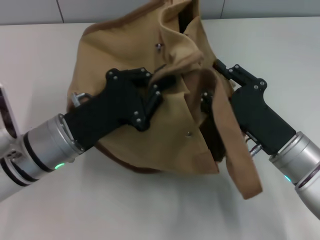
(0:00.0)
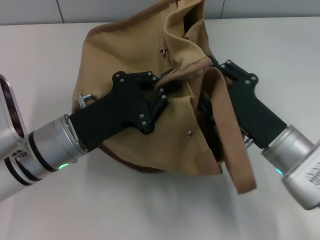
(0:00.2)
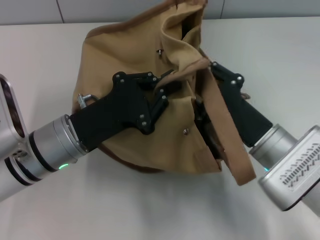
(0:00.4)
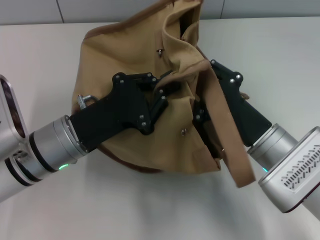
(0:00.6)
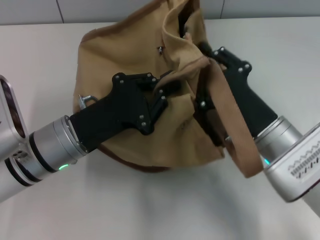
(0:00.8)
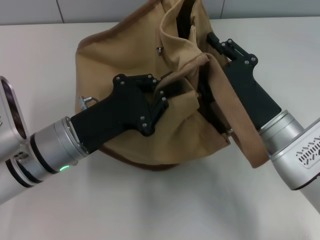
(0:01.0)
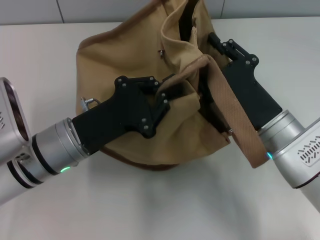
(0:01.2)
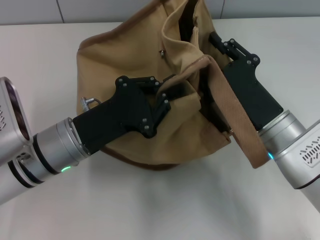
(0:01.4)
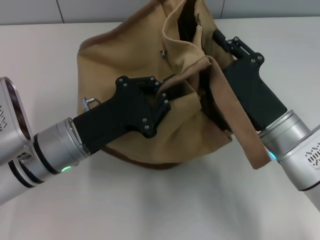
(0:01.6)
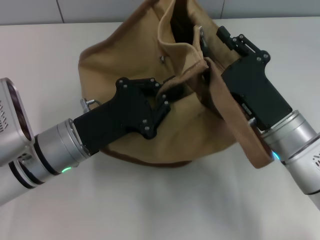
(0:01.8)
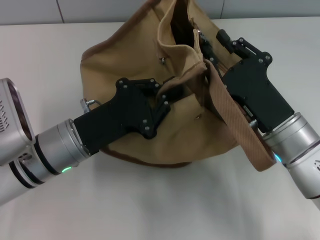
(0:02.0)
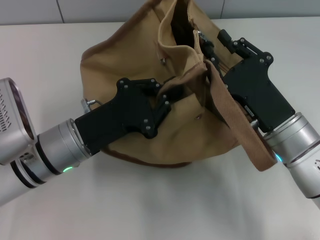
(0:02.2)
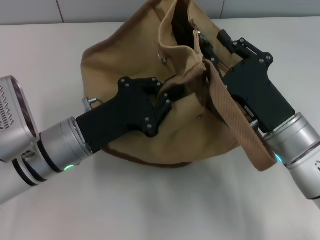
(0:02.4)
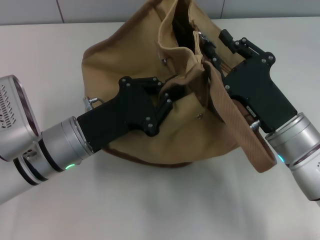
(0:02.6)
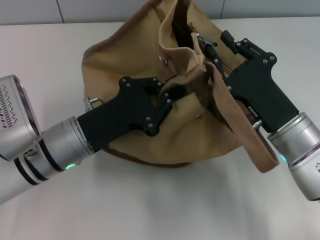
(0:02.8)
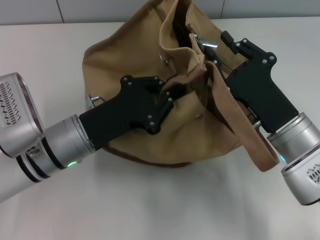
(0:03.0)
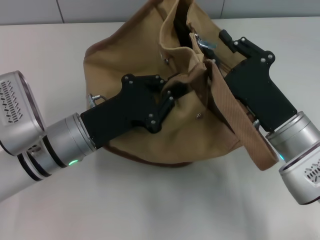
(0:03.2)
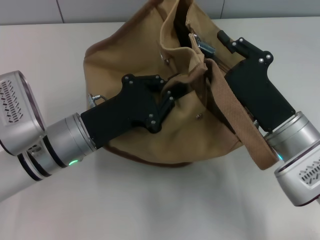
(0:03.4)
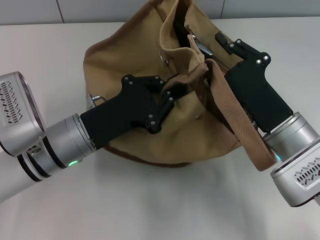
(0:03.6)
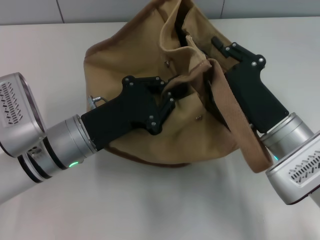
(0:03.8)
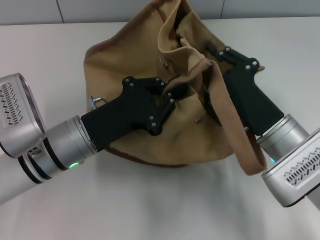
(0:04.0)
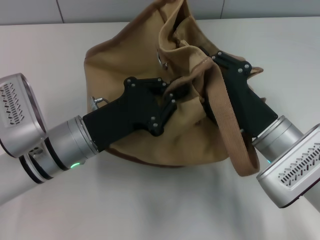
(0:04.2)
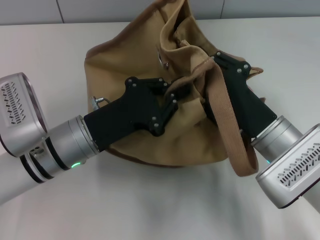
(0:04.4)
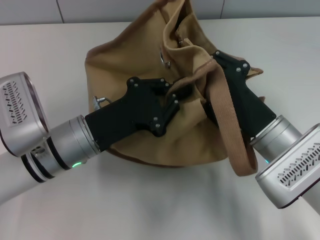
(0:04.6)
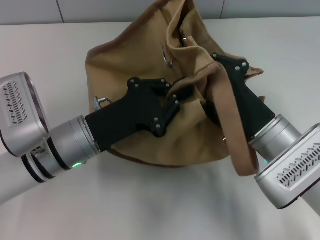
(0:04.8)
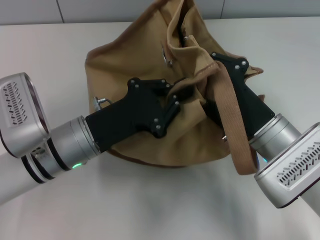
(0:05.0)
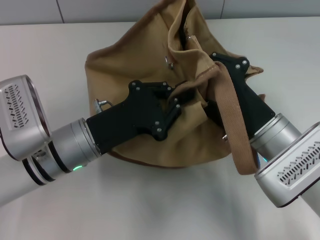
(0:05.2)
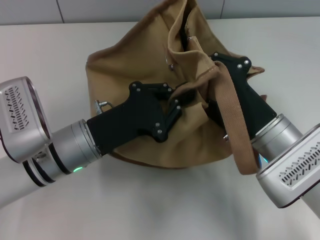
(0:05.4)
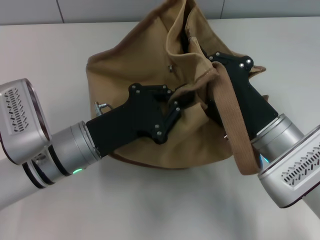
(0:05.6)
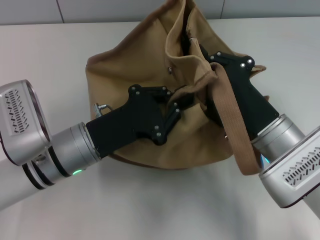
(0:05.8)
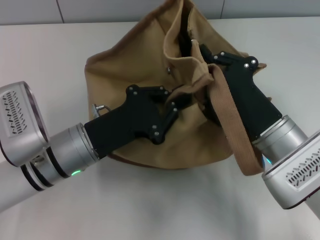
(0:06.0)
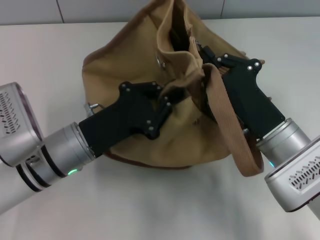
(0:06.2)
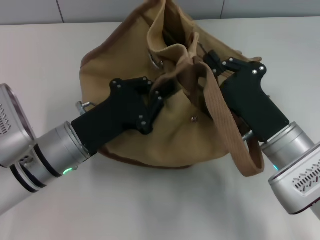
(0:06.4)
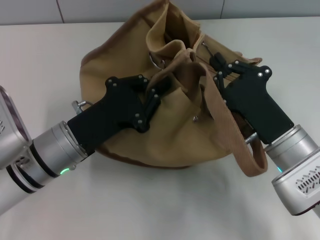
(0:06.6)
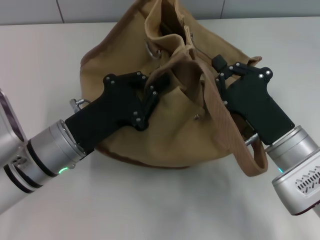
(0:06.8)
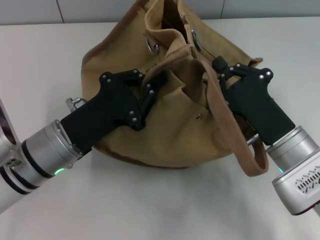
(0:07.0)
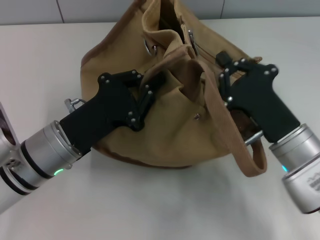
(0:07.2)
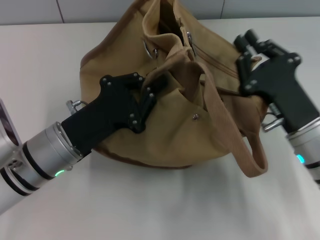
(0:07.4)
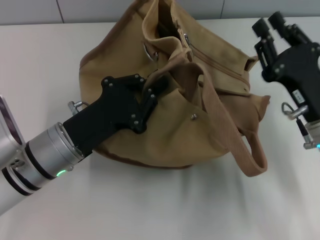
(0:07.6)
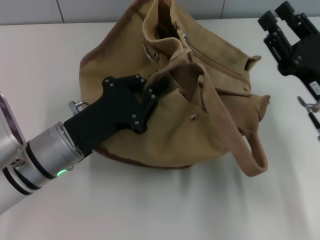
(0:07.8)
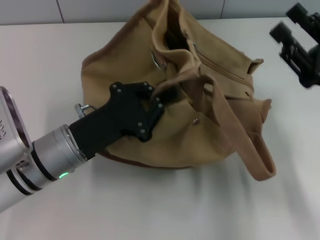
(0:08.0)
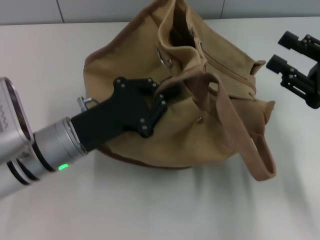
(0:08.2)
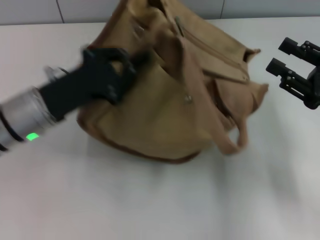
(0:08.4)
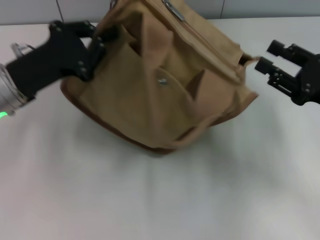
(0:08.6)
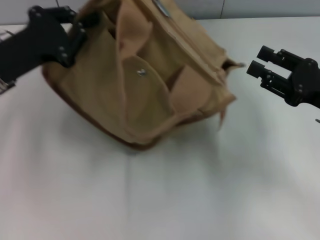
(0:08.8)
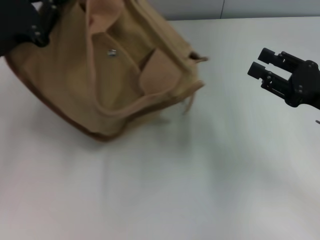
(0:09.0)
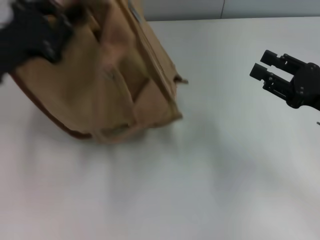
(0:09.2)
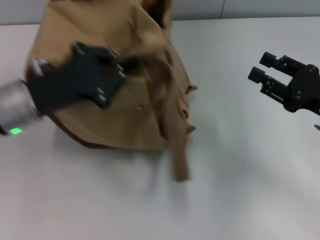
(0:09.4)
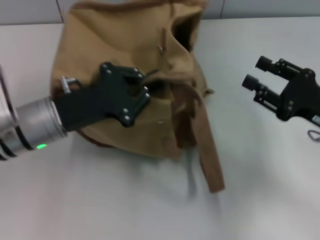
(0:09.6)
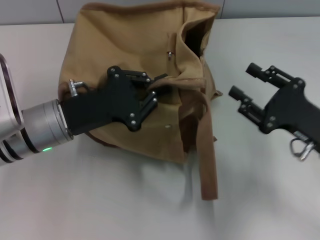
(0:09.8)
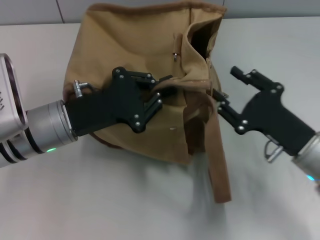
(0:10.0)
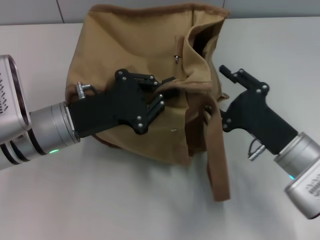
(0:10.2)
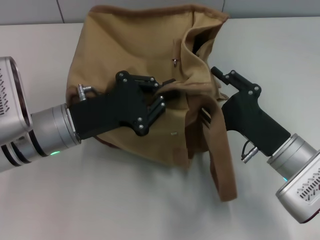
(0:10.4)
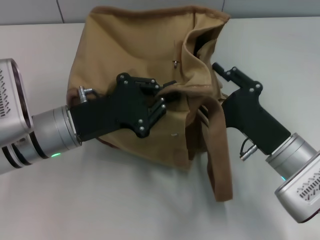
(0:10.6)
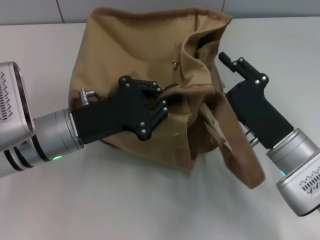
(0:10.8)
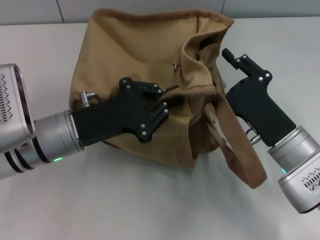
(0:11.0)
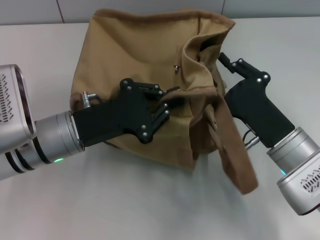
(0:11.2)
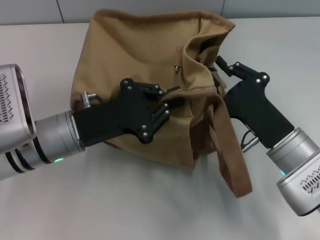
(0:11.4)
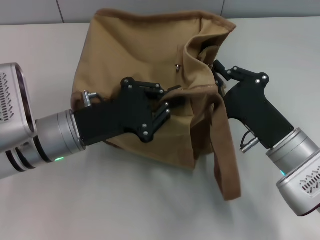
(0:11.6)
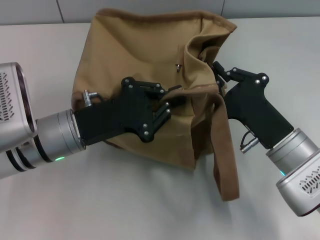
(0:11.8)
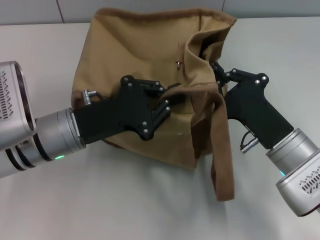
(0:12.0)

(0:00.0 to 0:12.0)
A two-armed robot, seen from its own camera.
0:01.6 - 0:03.0: There are only small adjustments of the grippers.
0:04.4 - 0:06.0: The right gripper closes.
0:06.0 - 0:07.6: The right gripper travels to the right by about 5 cm.
0:07.6 - 0:09.0: The left gripper heads to the left, upward and forward, covering roughly 15 cm. Meanwhile the right gripper shifts some 5 cm to the right.
0:09.0 - 0:10.4: The right gripper goes about 10 cm to the left and downward, while the left gripper heads to the right and downward, covering about 15 cm.
0:10.4 - 0:12.0: The right gripper closes.

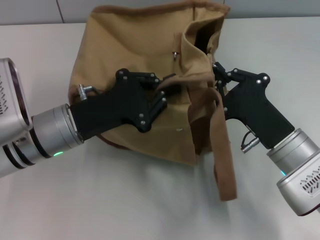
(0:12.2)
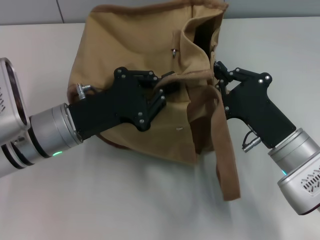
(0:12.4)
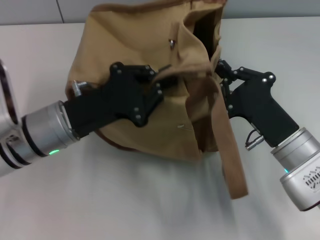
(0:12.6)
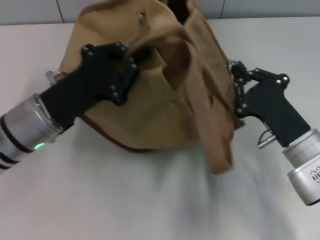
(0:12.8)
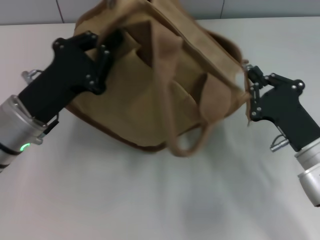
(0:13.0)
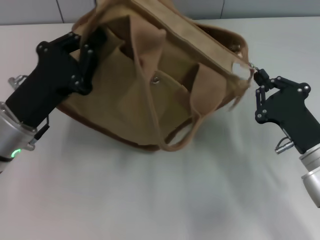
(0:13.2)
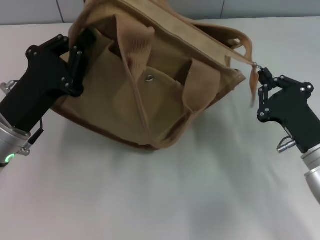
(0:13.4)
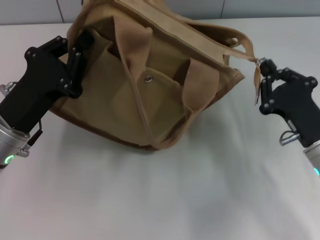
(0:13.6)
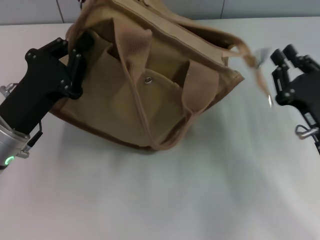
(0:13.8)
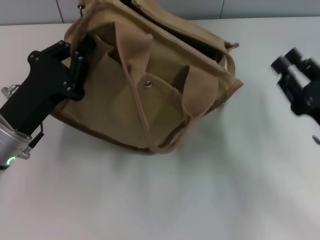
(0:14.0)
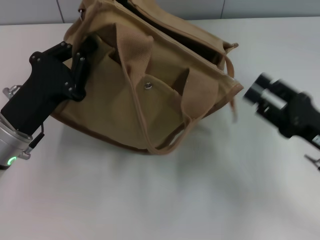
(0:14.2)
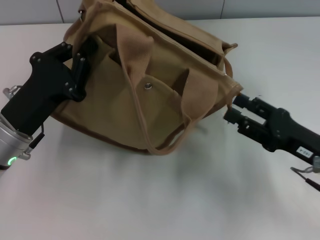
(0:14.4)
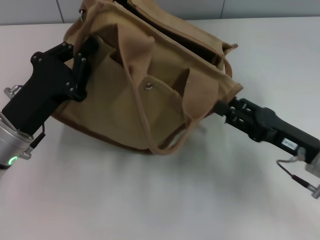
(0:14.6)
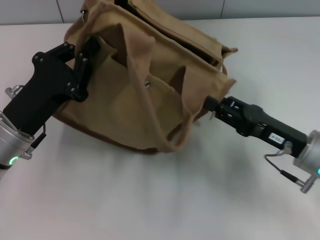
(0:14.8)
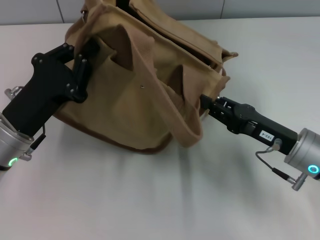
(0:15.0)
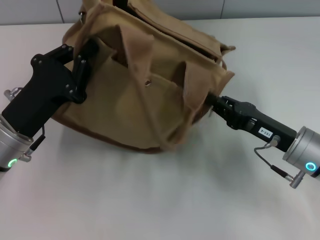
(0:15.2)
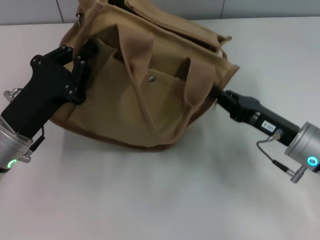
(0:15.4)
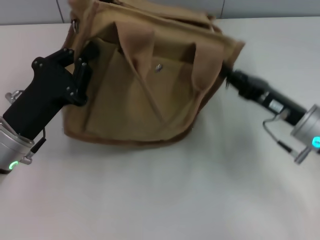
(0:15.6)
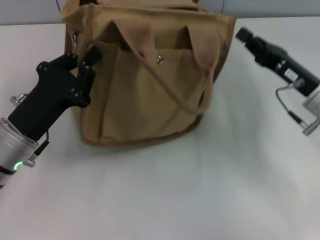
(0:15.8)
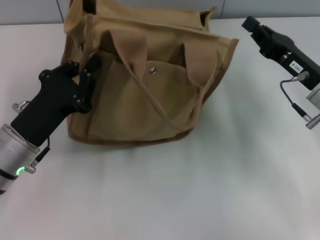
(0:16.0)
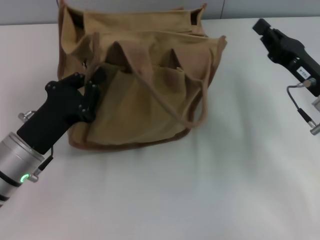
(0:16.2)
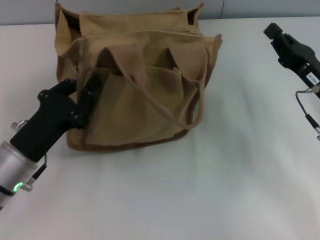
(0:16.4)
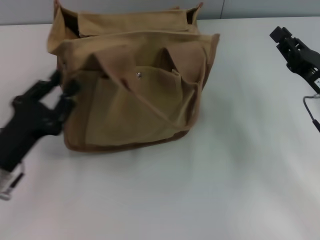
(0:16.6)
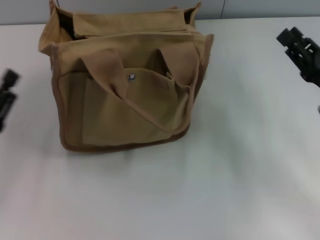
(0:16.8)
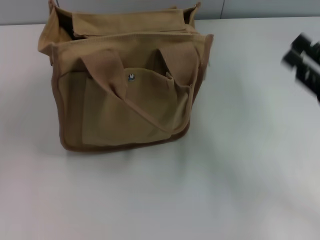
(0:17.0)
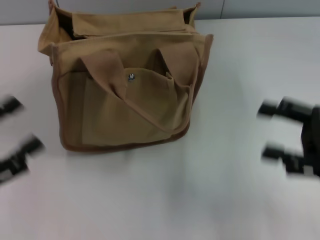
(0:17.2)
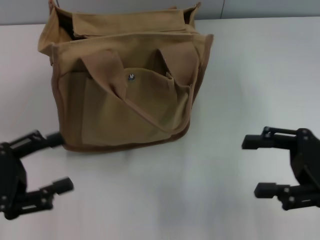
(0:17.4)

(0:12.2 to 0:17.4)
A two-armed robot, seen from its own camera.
Step, 0:14.2 - 0:16.6: Grab the bag with your left hand.
0:12.2 - 0:14.0: The right gripper is displaced to the right by roughly 10 cm; the left gripper shifts about 5 cm to the left.
0:14.0 - 0:15.6: The right gripper heads forward, covering about 5 cm, and opens and closes again.
0:15.6 - 0:17.4: The left gripper moves to the left and backward, roughly 10 cm, and opens its fingers. The right gripper moves upward, backward and to the right, about 10 cm, and opens up.

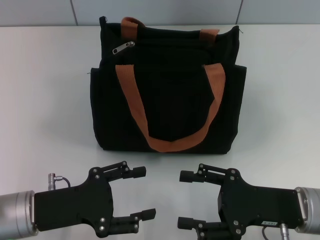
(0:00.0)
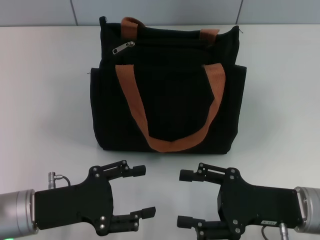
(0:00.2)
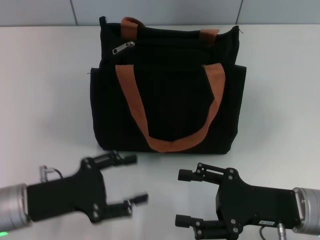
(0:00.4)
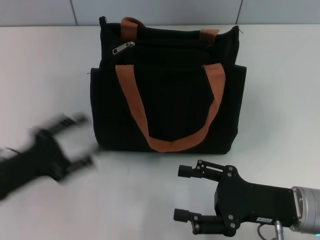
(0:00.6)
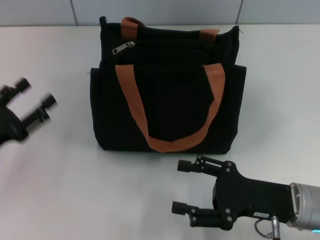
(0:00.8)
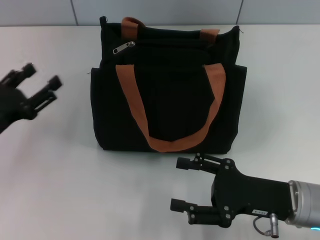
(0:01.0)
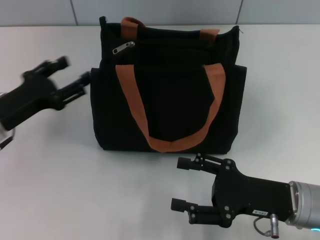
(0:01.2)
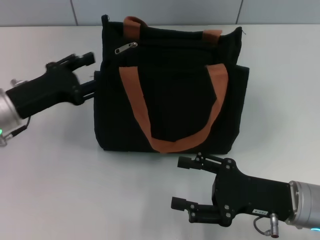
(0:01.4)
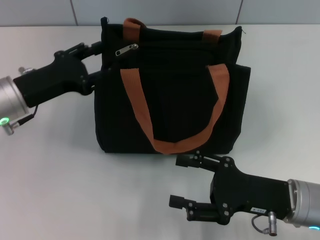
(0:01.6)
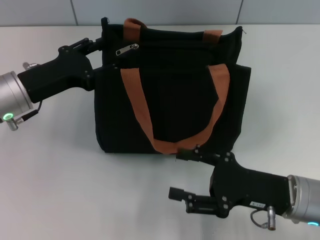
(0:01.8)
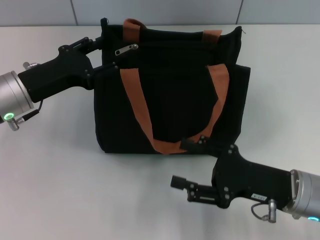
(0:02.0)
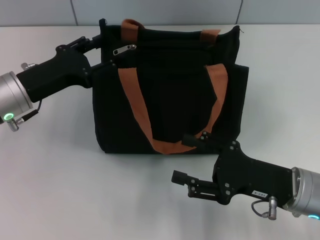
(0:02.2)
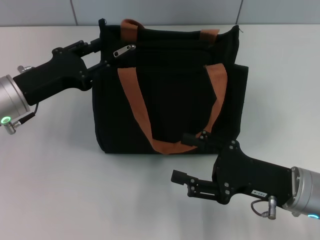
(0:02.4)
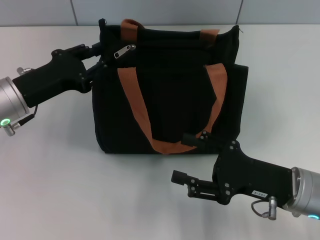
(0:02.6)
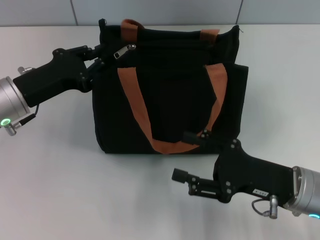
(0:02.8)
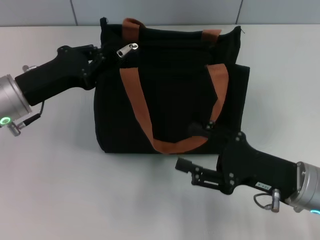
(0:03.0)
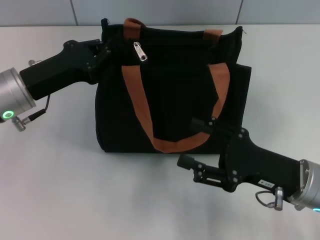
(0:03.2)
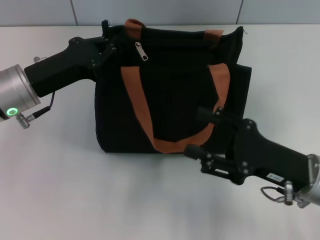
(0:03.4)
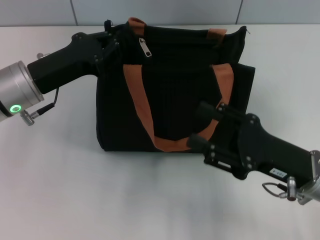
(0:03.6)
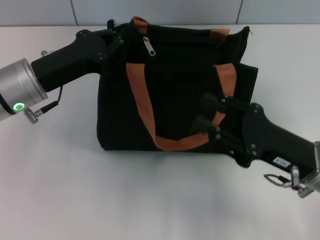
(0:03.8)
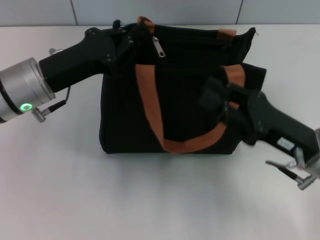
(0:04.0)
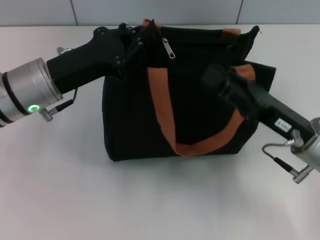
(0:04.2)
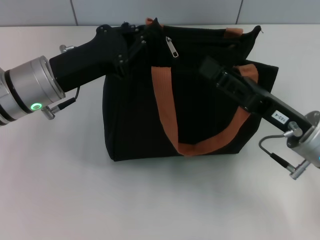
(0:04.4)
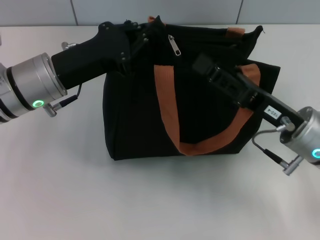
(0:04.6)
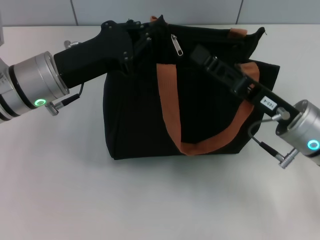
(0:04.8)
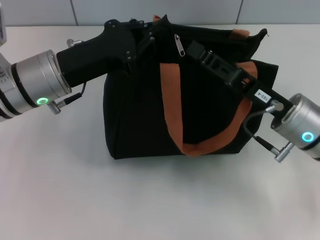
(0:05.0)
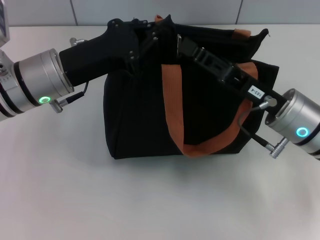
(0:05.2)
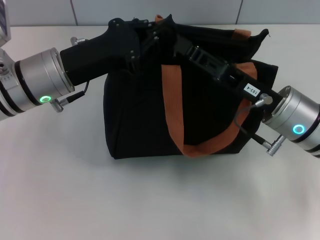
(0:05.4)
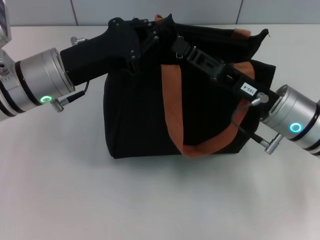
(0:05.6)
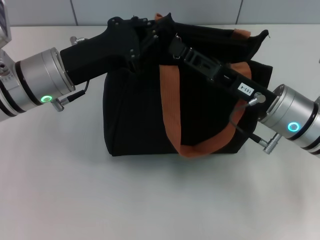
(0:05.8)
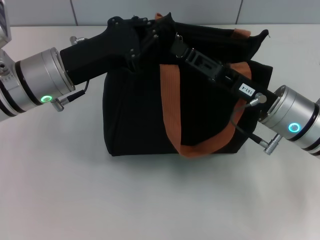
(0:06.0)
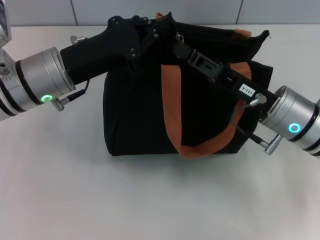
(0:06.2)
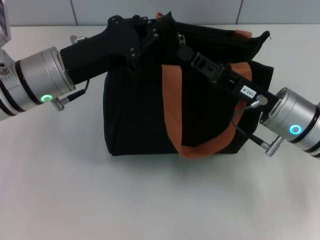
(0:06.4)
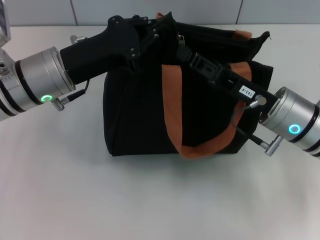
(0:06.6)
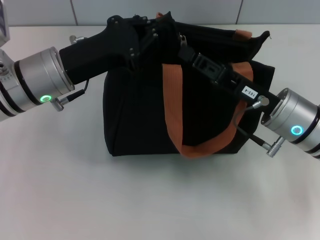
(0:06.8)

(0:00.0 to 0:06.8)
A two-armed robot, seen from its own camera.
0:00.0 - 0:01.4: The left gripper travels forward by some 10 cm.
0:01.4 - 0:02.8: The left gripper closes up.
0:02.8 - 0:04.0: The left gripper closes up.
0:04.0 - 0:05.4: The right gripper shifts approximately 5 cm forward.
0:05.4 - 0:06.8: The right gripper closes up.
